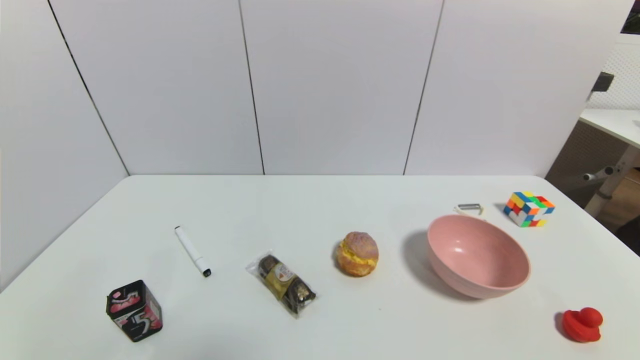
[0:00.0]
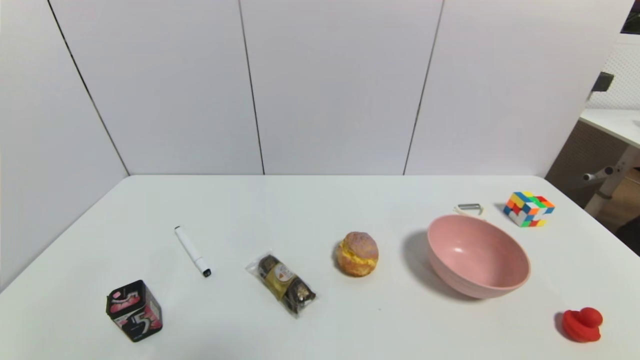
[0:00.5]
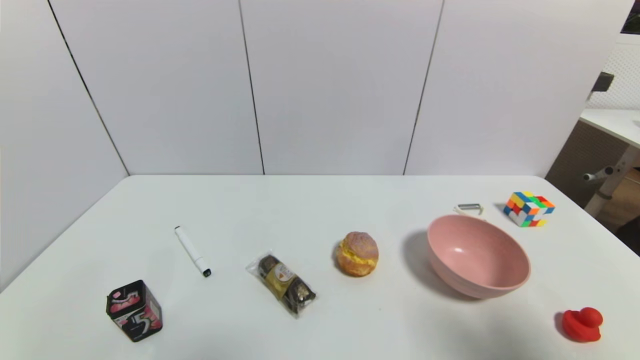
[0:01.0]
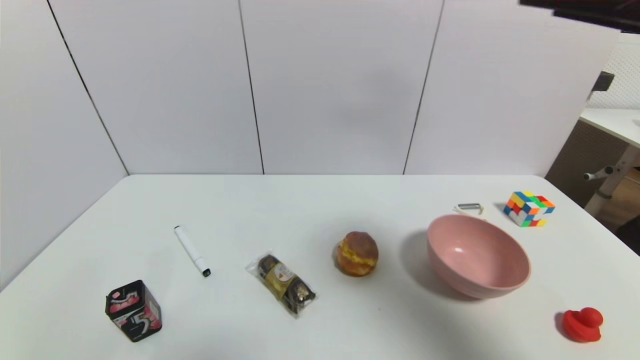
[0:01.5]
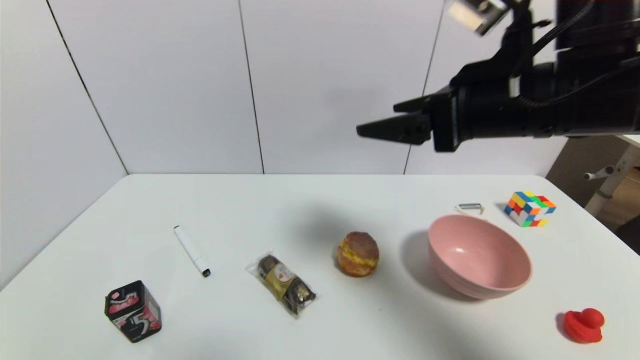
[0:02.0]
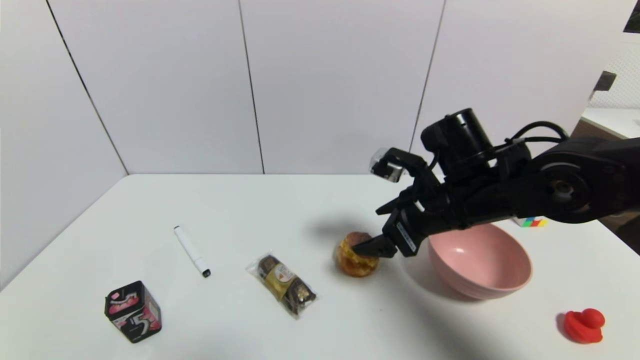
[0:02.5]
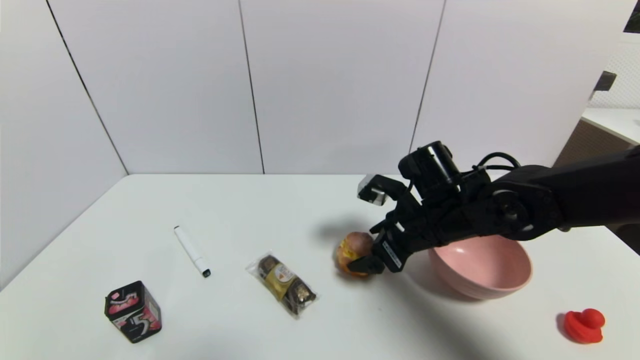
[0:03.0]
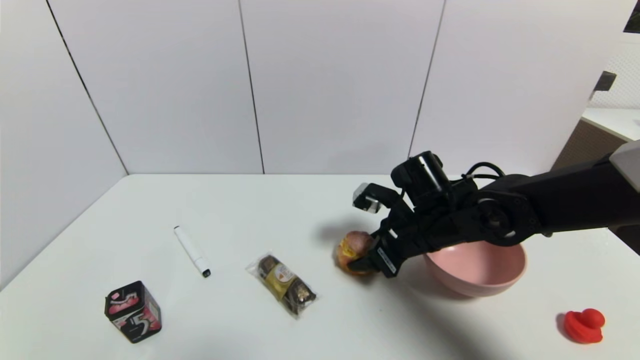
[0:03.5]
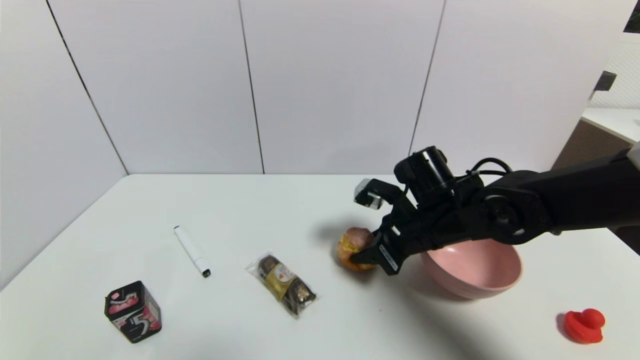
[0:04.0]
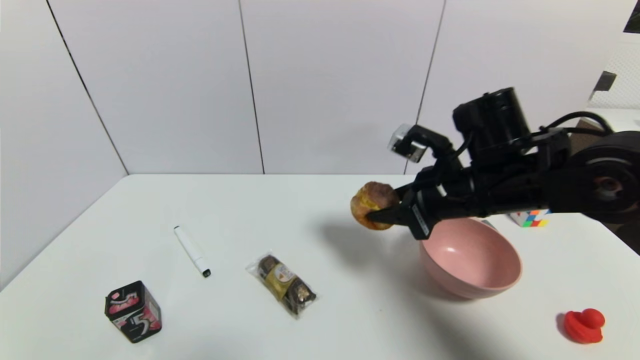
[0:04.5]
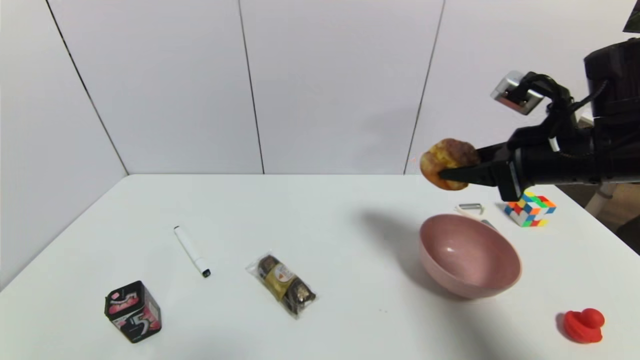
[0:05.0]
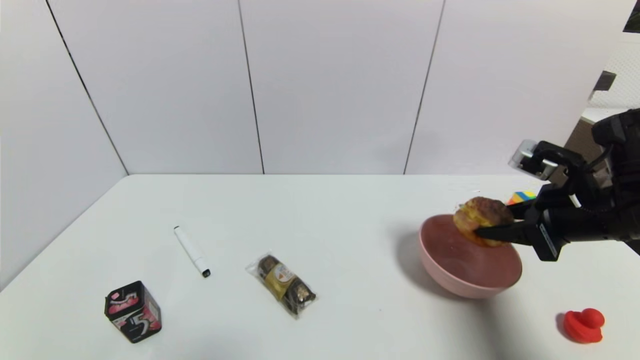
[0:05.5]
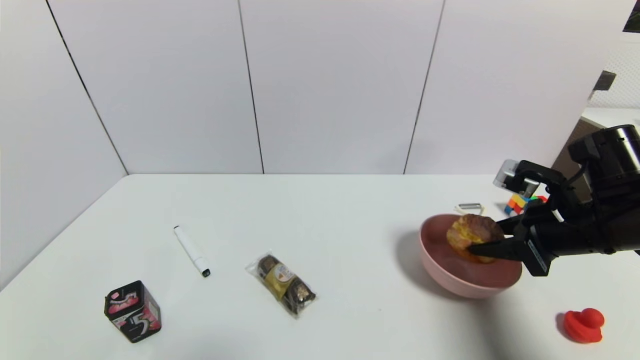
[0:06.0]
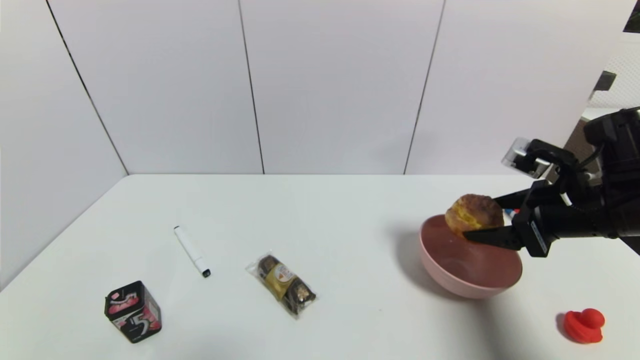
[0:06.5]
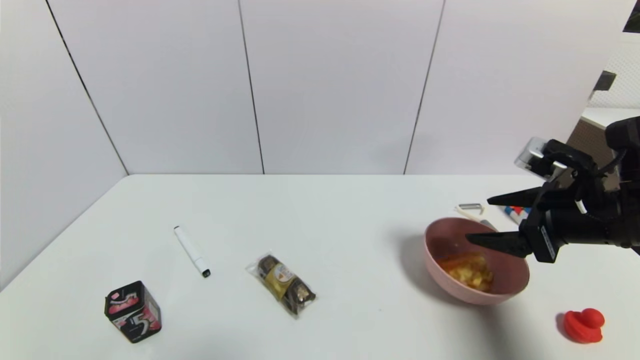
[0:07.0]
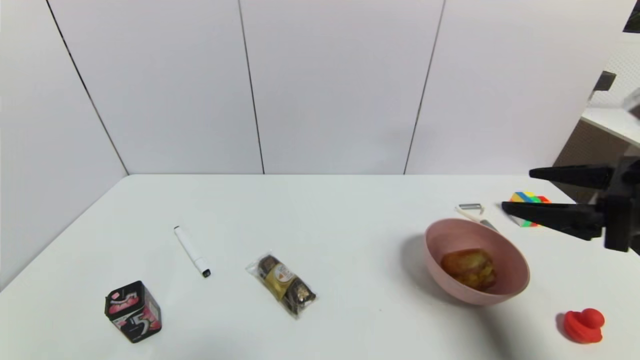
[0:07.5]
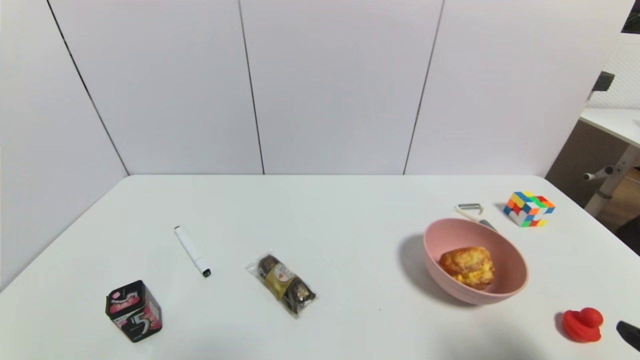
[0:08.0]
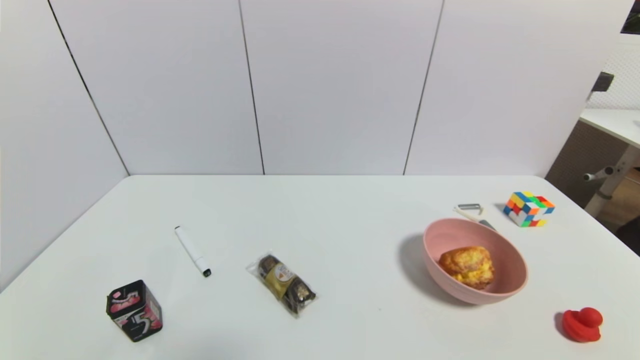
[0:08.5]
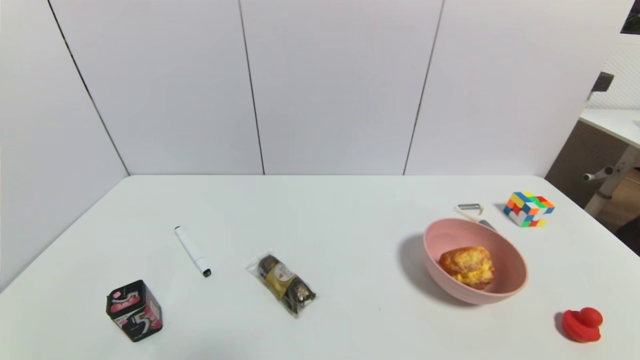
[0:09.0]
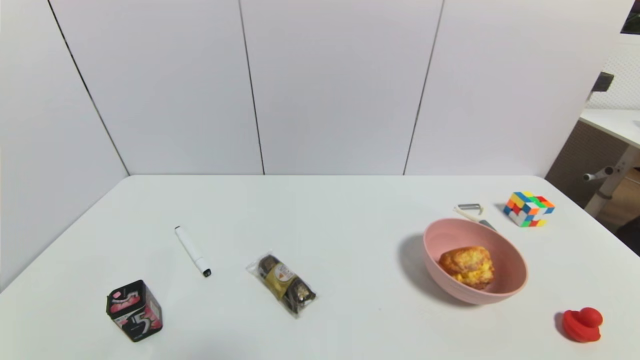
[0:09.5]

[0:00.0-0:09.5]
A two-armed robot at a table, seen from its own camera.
Task of the whole recording: use a gripper to pick the target object and place on the pink bowl.
Step, 0:00.0 to 0:03.5: Grasp the round bread with the right gripper.
Step, 0:04.0 to 0:07.0: Place the round bread on the pink bowl with the right gripper.
0:00.0 to 0:02.0: The right gripper goes approximately 40 cm forward, upward and to the left.
0:02.0 to 0:04.0: The right gripper travels downward by some 15 cm, and closes.
0:04.0 to 0:05.5: The right gripper travels to the right by approximately 15 cm.
0:05.5 to 0:07.5: The right gripper heads backward and upward, covering roughly 10 cm, and opens up.
0:07.5 to 0:09.5: The right gripper travels downward and backward by roughly 25 cm.
